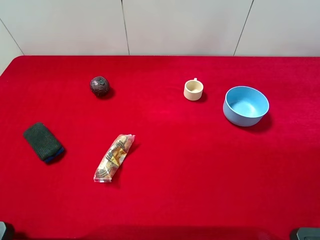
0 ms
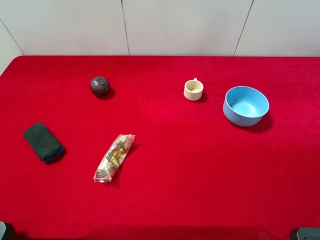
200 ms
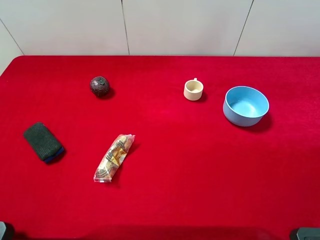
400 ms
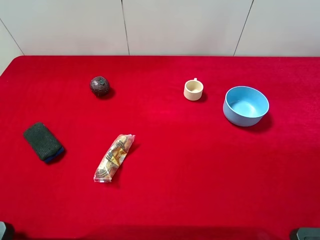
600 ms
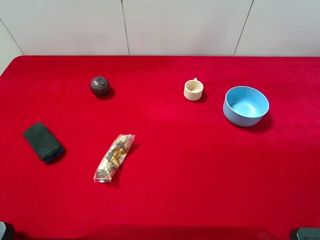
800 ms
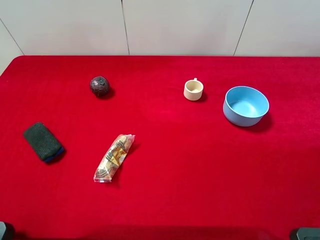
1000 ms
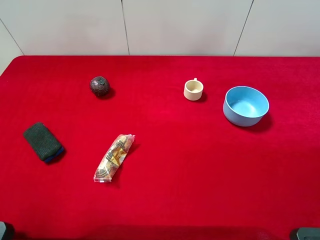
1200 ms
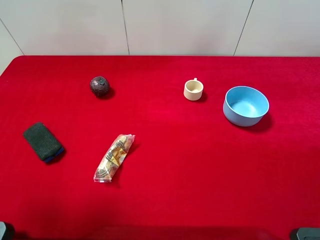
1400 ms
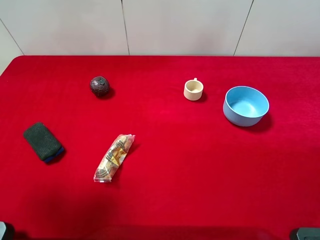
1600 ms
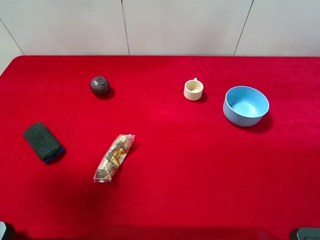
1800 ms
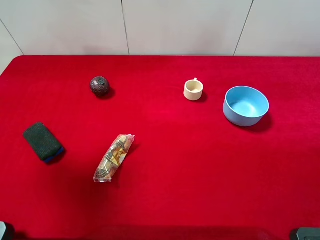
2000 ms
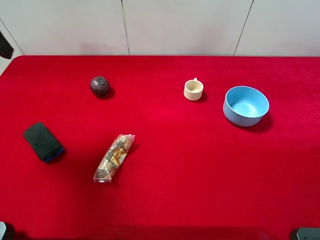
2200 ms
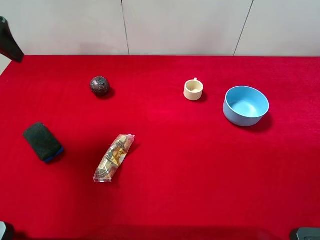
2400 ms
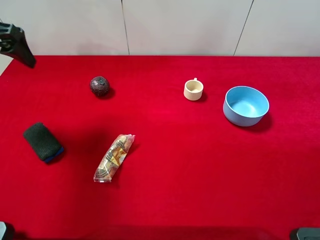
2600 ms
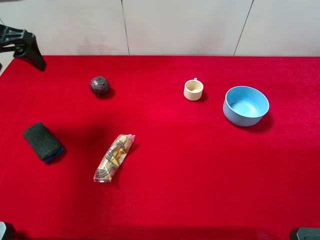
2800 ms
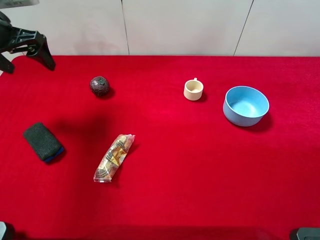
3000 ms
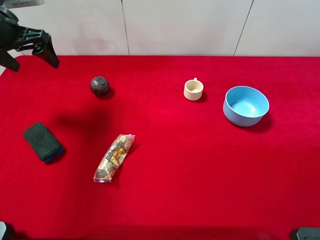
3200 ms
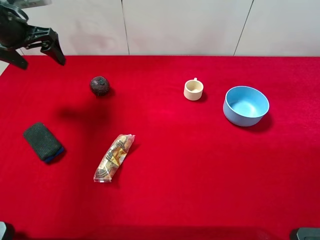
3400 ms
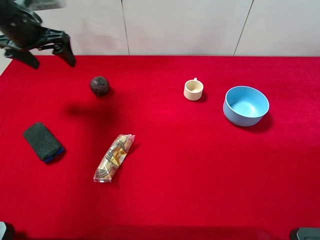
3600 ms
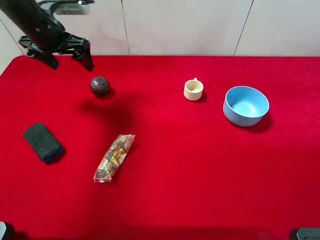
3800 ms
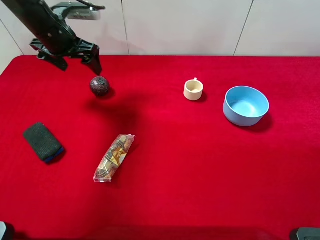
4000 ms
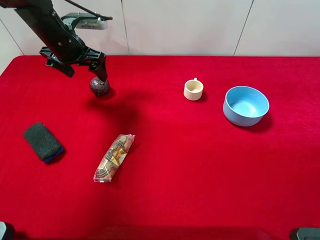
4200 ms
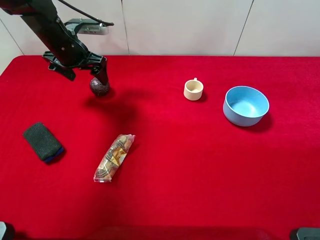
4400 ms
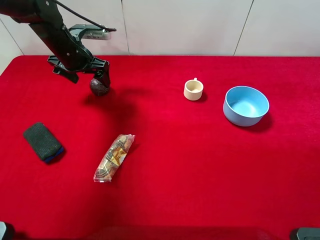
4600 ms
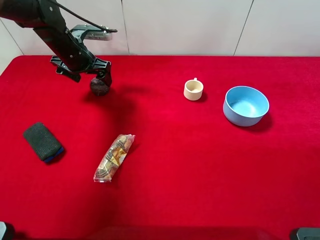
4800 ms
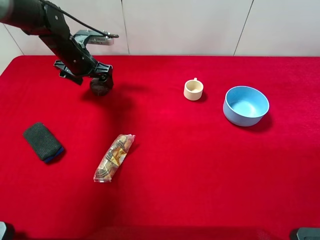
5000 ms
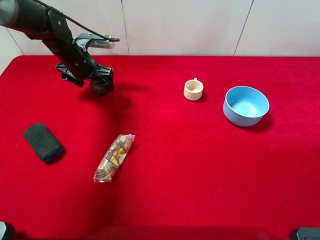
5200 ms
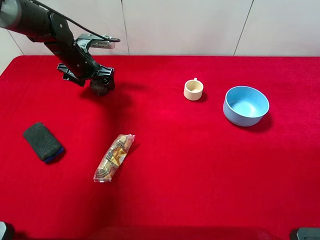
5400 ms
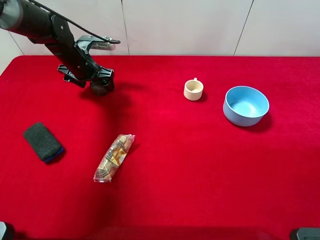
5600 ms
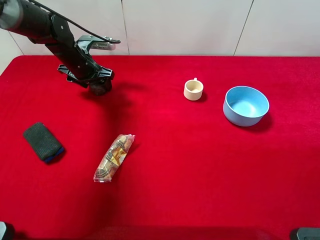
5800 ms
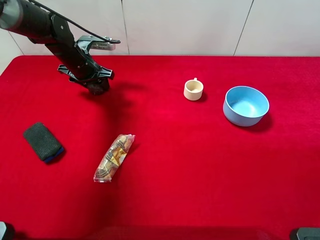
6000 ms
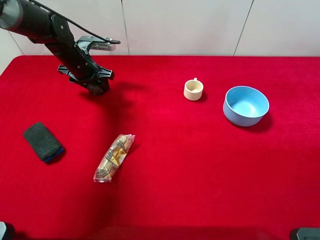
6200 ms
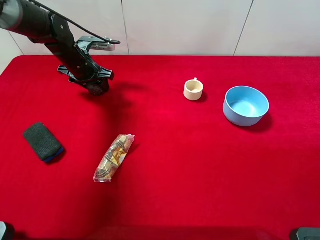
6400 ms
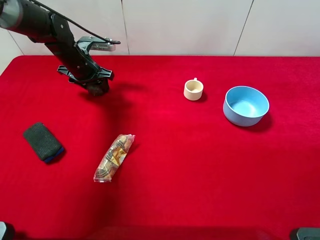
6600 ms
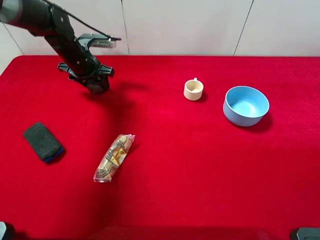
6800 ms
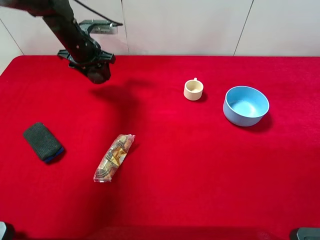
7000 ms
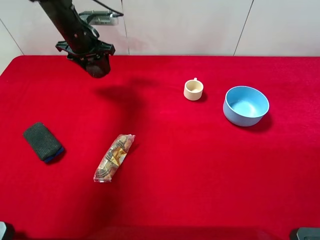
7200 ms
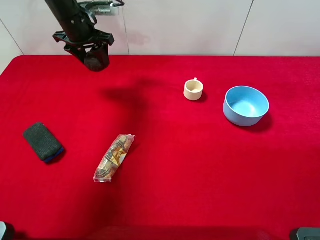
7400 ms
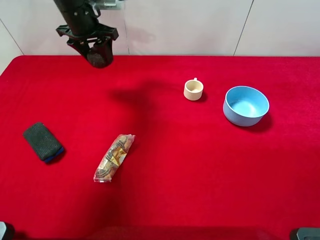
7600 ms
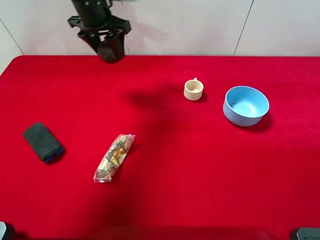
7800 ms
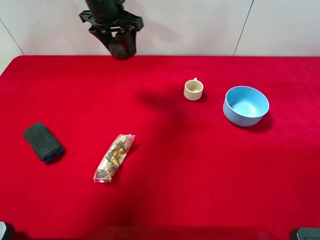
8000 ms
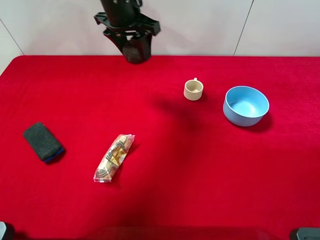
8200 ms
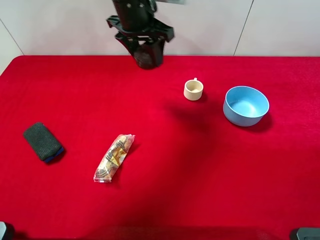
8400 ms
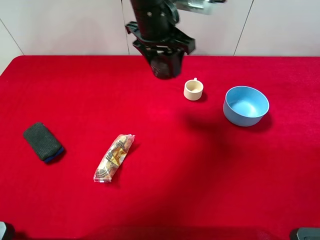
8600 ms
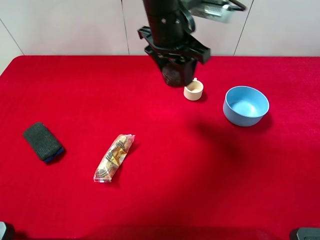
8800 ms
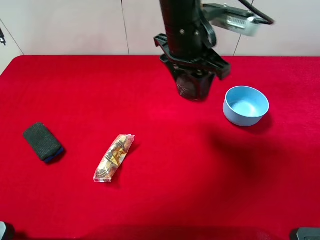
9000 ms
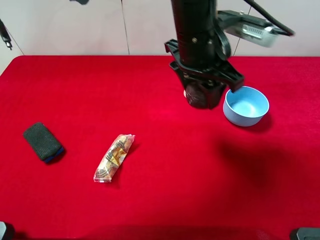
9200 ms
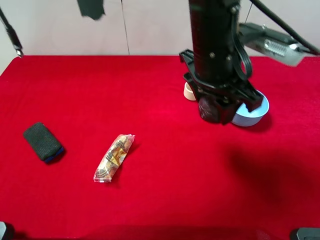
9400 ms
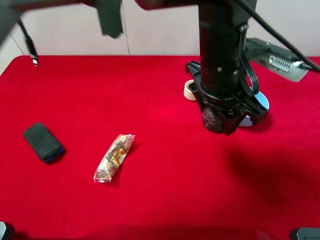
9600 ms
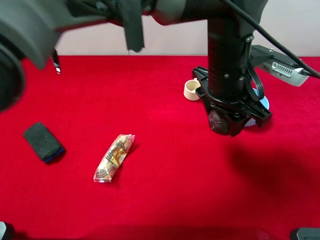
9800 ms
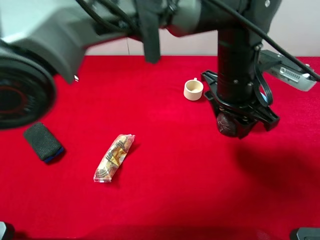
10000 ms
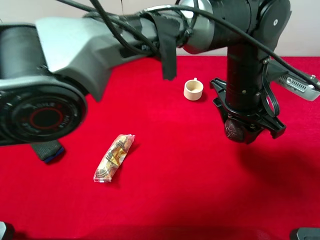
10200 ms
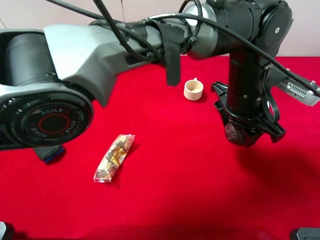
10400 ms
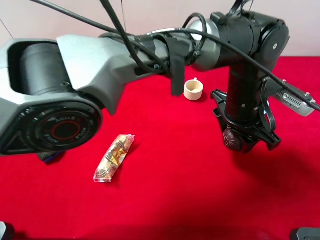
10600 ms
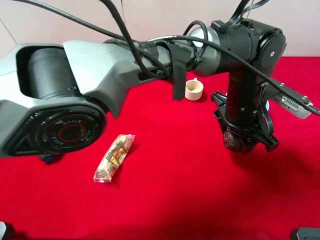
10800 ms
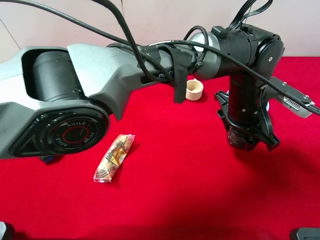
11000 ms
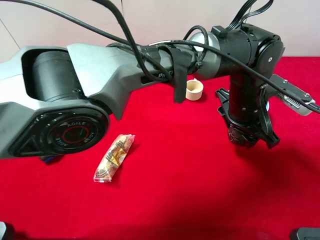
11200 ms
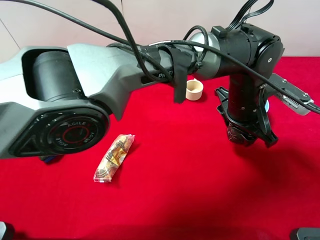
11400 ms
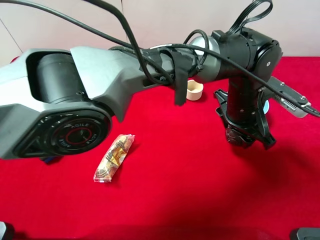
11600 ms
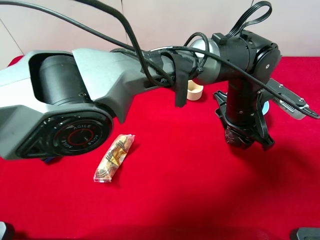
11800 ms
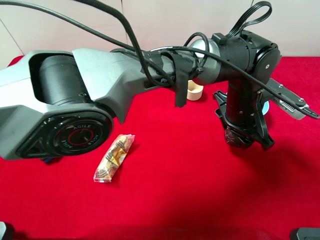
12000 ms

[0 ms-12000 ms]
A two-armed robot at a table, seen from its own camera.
Task of the whole recording: the gripper move the object.
Step, 0 ms to 6200 ms: Grasp the mangosteen with the left gripper.
0 ms to 1600 ms: The left gripper is displaced forward and upward by approximately 15 cm.
1600 ms to 3000 ms: The left gripper travels forward and downward by approximately 20 cm.
3000 ms to 4400 ms: The left gripper goes approximately 15 cm to the right, downward and forward.
4400 ms to 6000 ms: The left gripper travels downward by some 5 cm, and closes its fingers.
6000 ms to 7600 ms: The left gripper shifts approximately 10 cm upward.
7600 ms to 9000 ms: The left gripper moves to the right and backward, about 25 cm.
9000 ms to 10400 ms: The left gripper heads to the right and downward, covering about 15 cm.

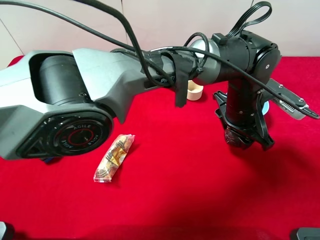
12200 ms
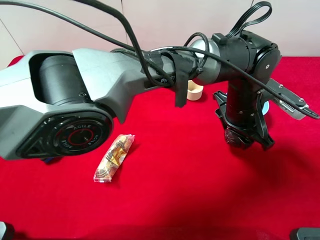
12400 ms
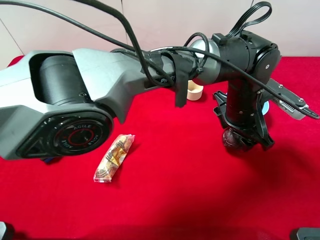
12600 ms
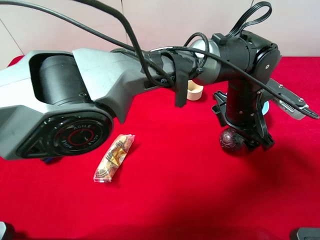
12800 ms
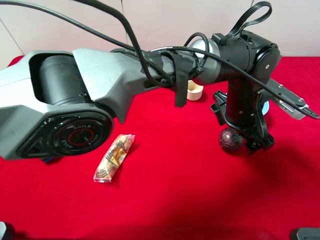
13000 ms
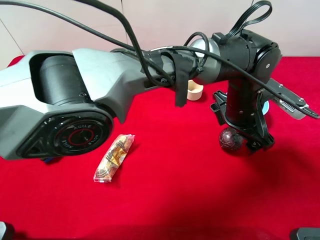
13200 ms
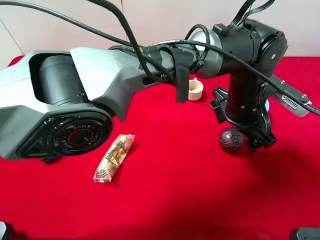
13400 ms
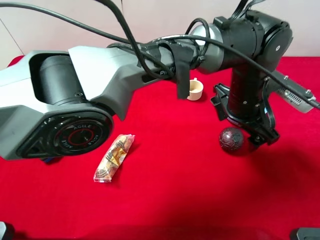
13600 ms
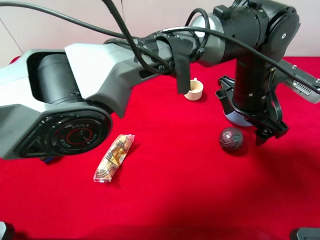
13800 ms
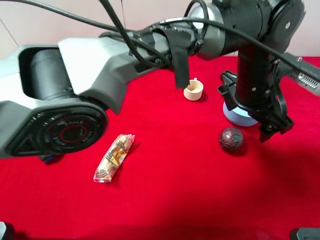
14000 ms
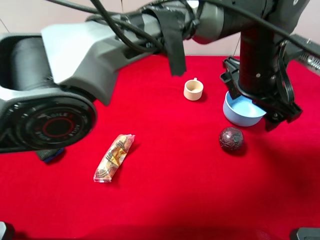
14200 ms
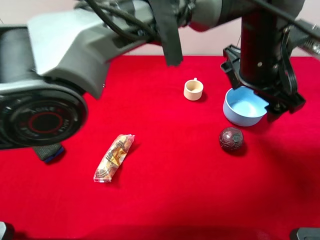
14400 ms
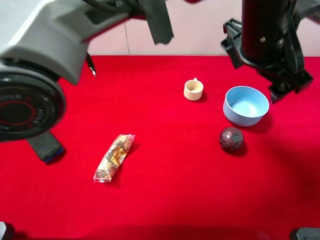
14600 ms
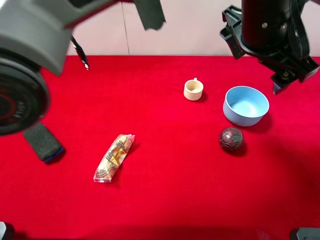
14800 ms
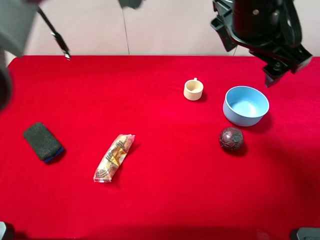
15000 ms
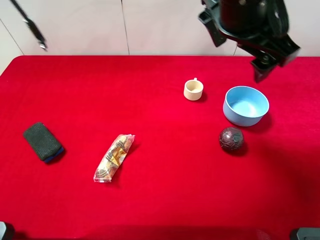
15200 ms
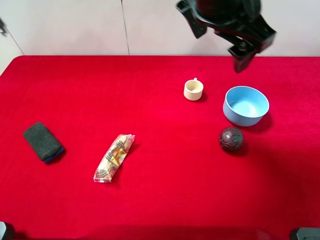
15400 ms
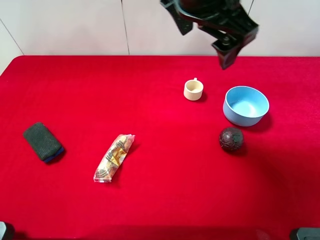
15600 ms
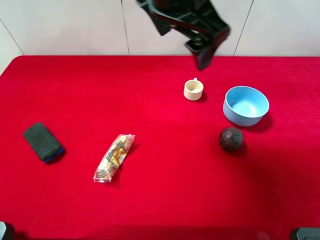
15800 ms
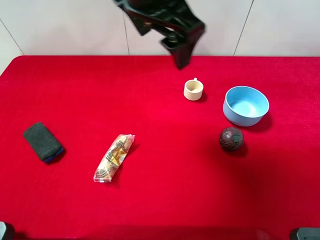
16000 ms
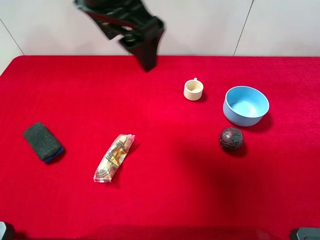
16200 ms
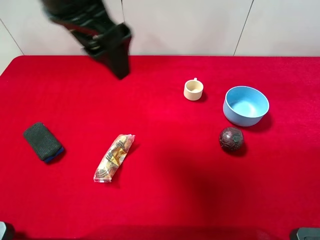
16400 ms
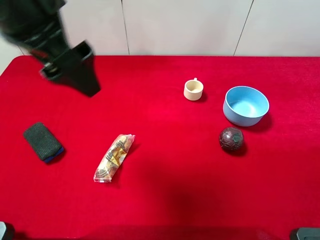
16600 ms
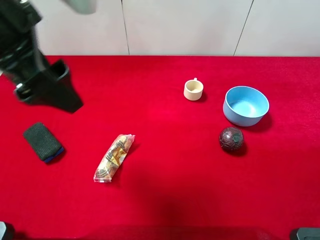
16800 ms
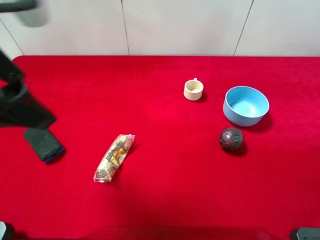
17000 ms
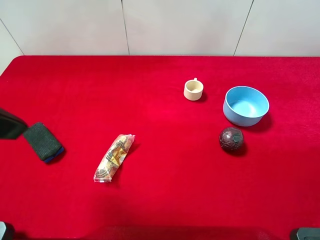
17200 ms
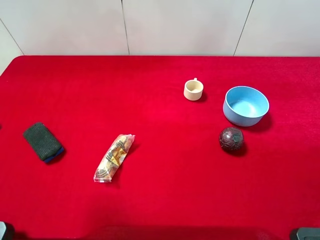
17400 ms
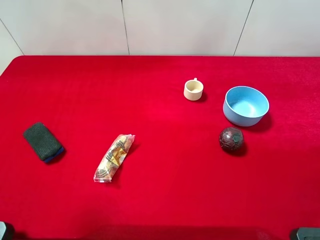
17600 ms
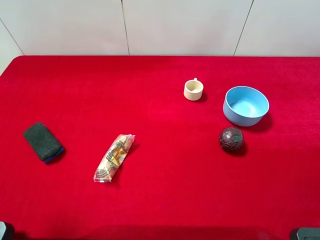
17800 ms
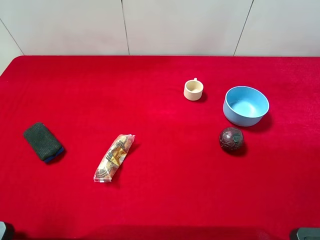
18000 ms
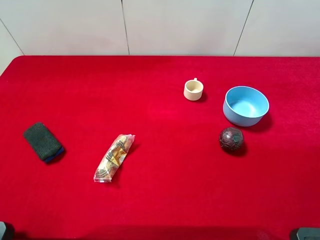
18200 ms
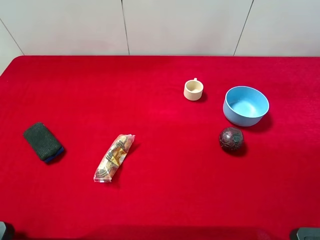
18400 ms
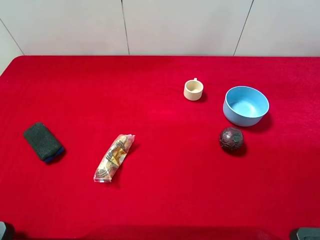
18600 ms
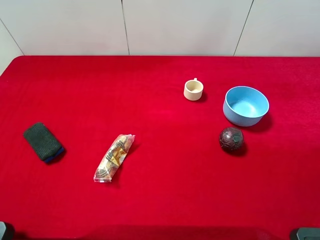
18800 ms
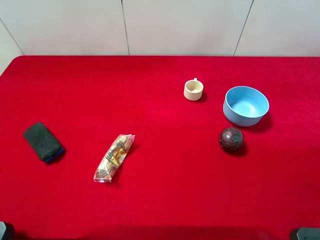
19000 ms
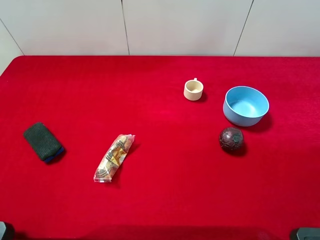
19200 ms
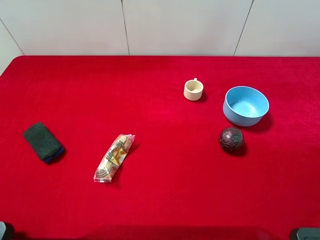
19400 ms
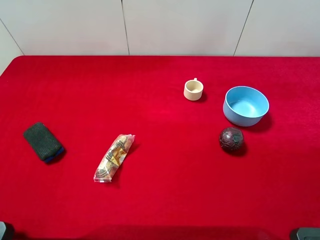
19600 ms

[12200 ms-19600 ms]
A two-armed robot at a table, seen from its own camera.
Task of the whole recording: the gripper move the object.
12200 ms to 13600 ms: The left gripper opens its fingers.
13600 ms to 15200 ms: The left gripper goes roughly 15 cm upward and to the left.
15200 ms to 16600 ms: The left gripper goes roughly 25 cm to the left.
16600 ms to 18200 ms: The left gripper travels backward and to the left by about 25 cm.

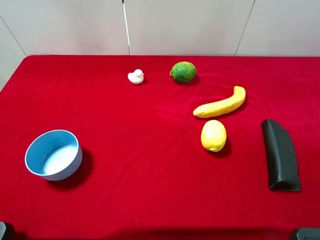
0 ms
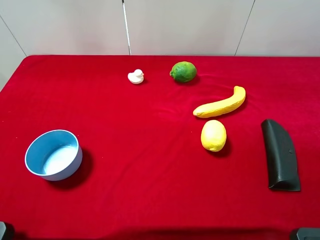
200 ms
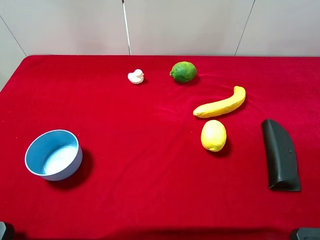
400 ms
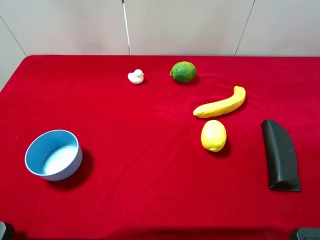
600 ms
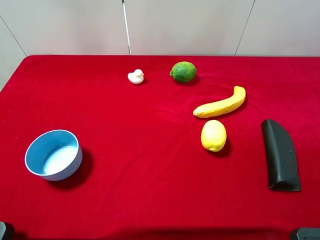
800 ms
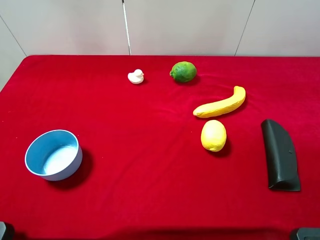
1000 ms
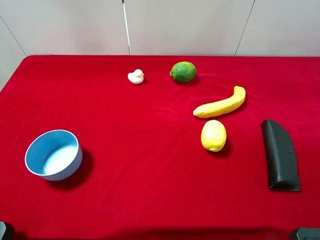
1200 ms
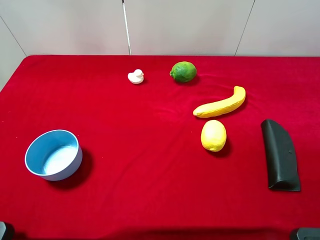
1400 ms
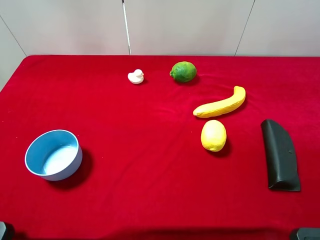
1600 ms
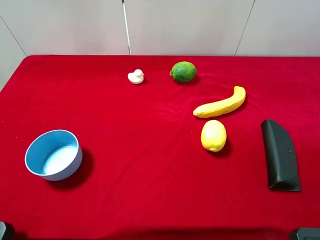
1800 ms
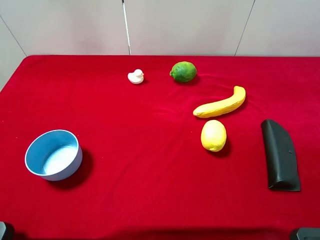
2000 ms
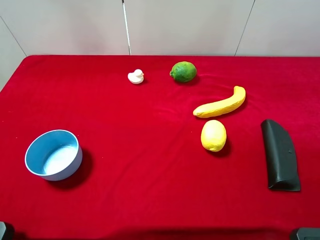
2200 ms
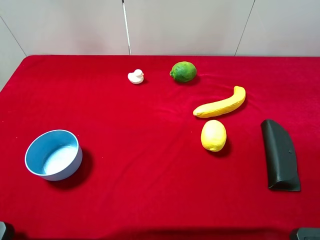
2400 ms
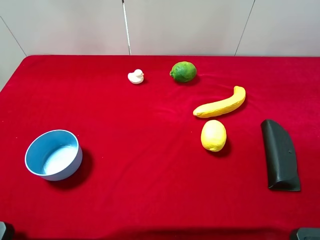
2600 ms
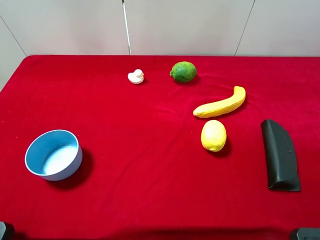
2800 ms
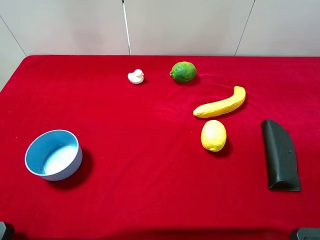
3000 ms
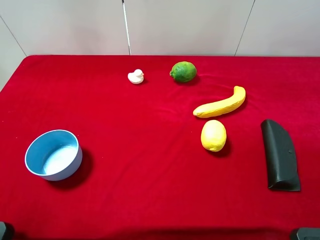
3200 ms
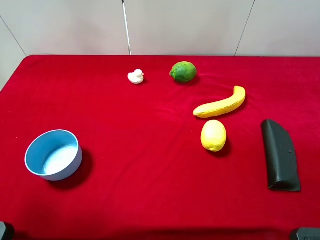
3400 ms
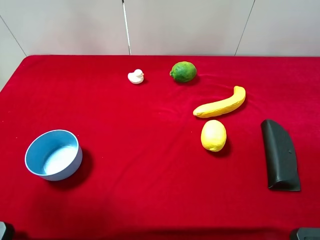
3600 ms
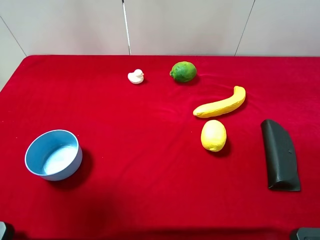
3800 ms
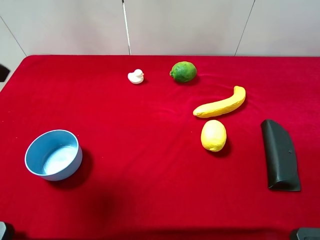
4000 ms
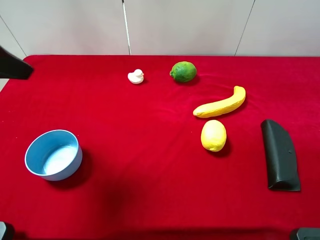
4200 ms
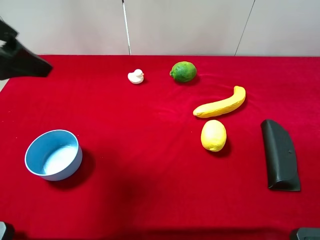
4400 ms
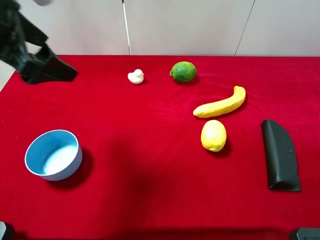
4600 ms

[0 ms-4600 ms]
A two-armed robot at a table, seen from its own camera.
Task of the whole recording: the gripper move the object.
0 ms to 1600 ms: Both grippers stay put.
3000 ms to 4600 ms: The left gripper moves forward and to the right, about 20 cm.
